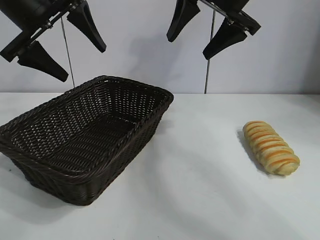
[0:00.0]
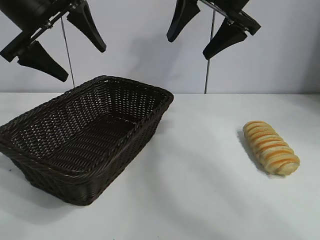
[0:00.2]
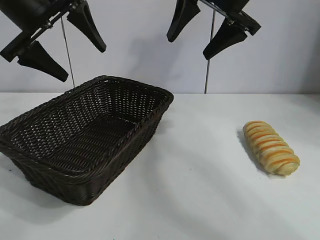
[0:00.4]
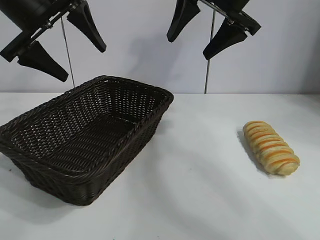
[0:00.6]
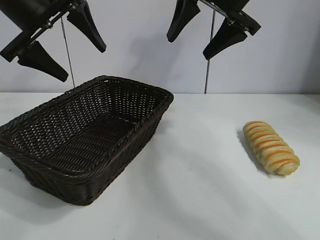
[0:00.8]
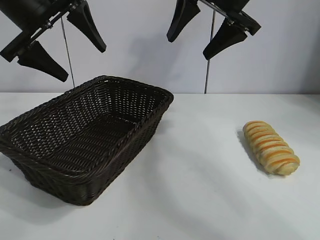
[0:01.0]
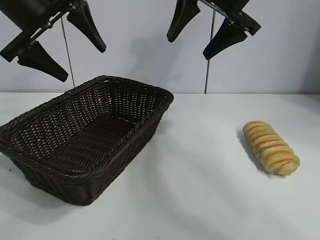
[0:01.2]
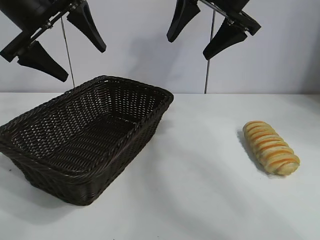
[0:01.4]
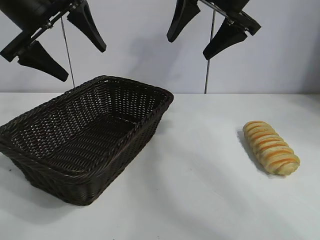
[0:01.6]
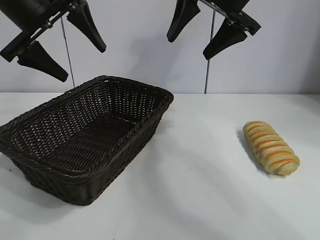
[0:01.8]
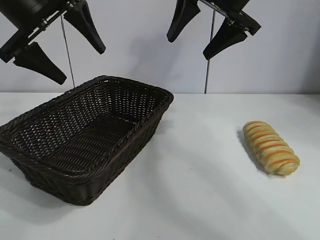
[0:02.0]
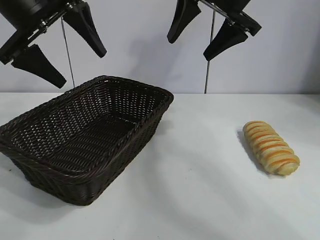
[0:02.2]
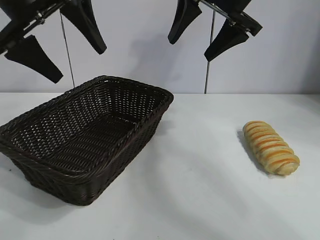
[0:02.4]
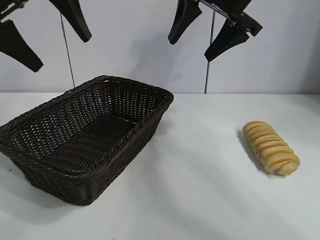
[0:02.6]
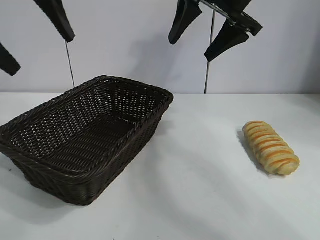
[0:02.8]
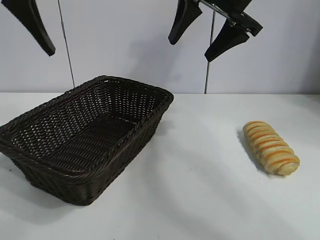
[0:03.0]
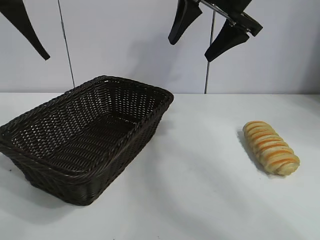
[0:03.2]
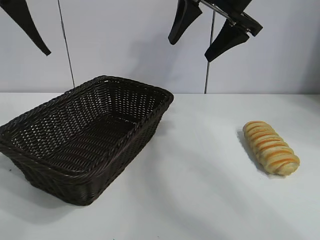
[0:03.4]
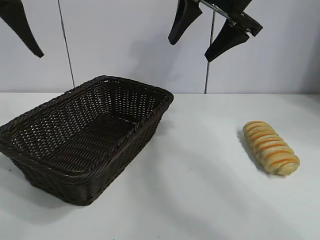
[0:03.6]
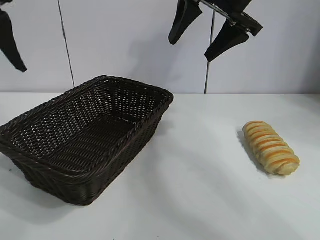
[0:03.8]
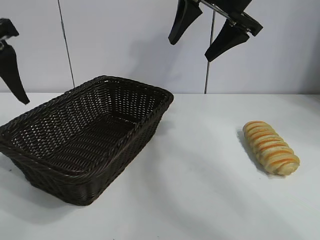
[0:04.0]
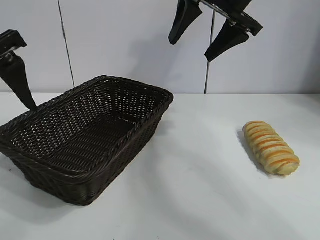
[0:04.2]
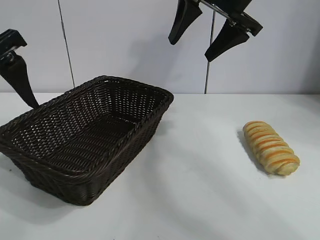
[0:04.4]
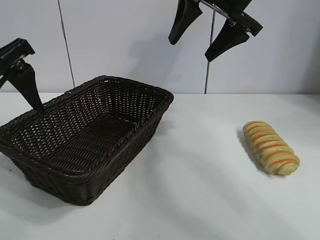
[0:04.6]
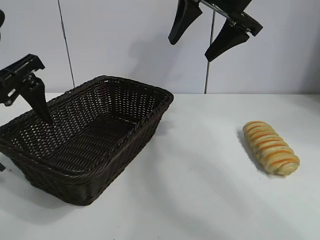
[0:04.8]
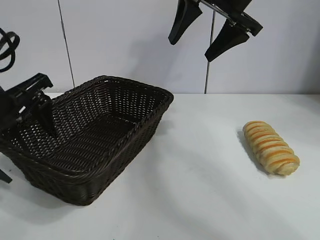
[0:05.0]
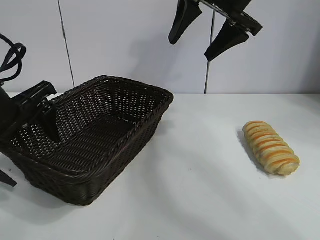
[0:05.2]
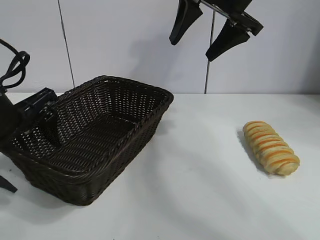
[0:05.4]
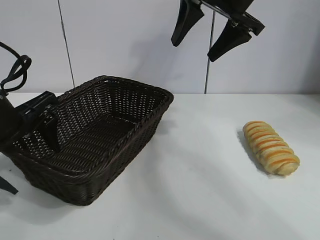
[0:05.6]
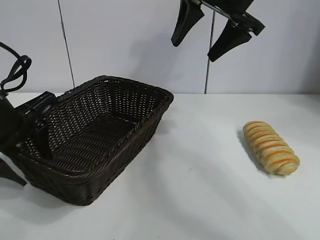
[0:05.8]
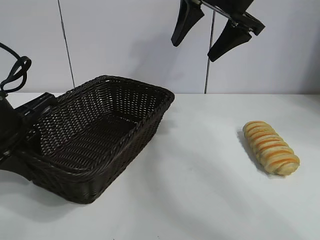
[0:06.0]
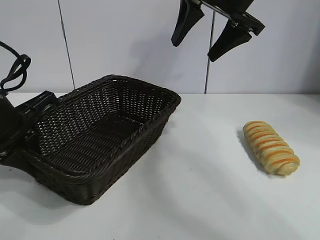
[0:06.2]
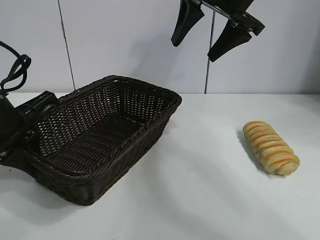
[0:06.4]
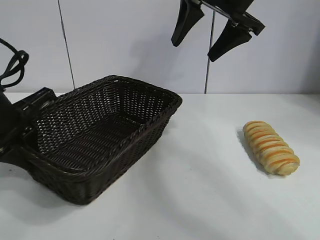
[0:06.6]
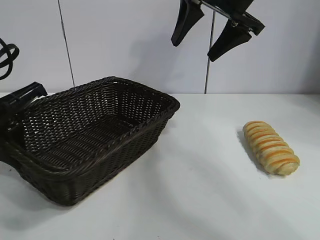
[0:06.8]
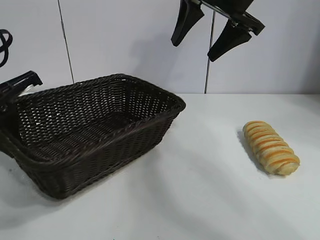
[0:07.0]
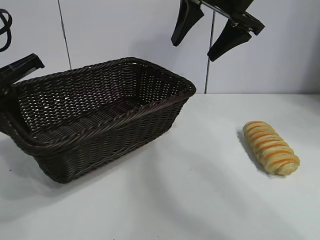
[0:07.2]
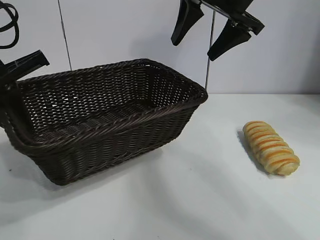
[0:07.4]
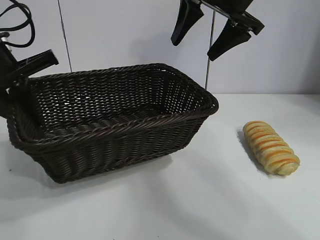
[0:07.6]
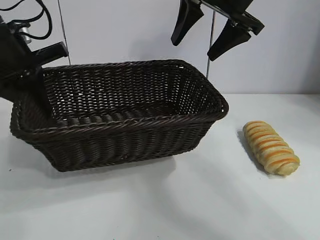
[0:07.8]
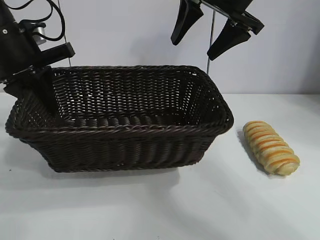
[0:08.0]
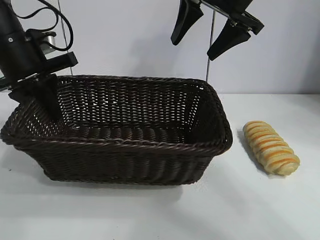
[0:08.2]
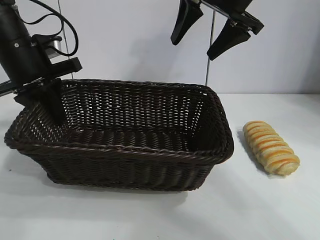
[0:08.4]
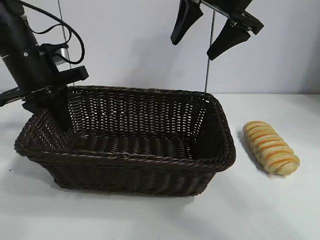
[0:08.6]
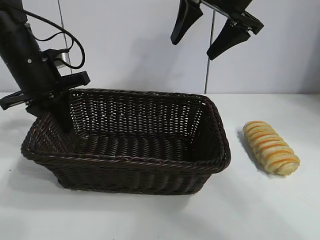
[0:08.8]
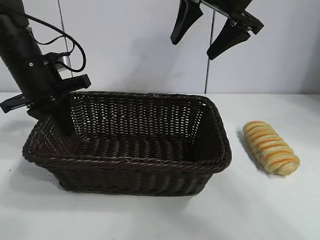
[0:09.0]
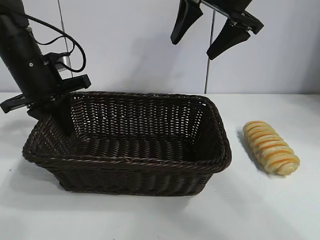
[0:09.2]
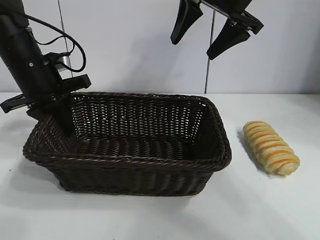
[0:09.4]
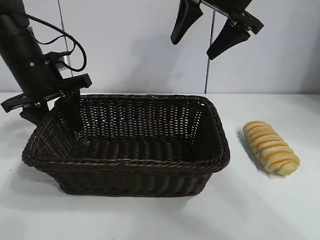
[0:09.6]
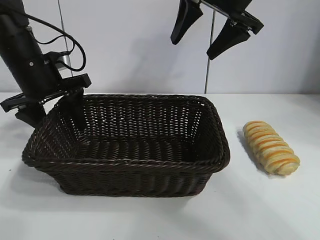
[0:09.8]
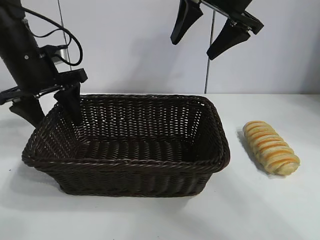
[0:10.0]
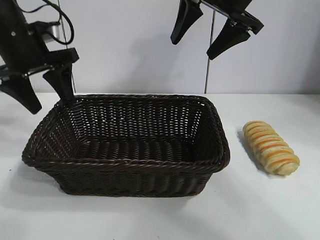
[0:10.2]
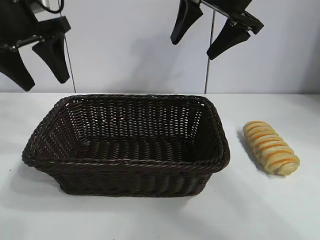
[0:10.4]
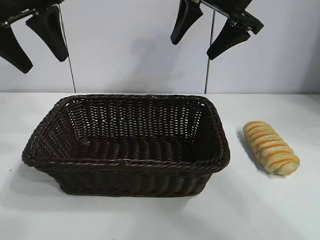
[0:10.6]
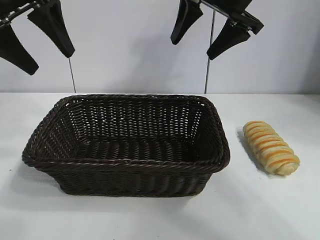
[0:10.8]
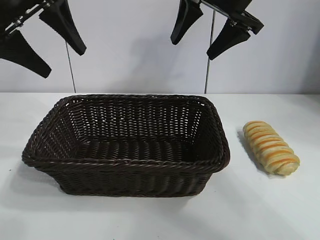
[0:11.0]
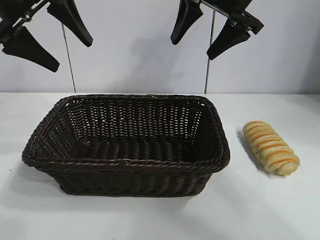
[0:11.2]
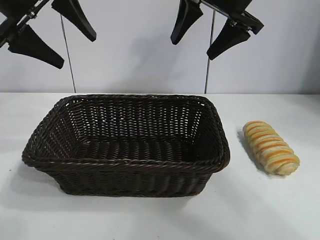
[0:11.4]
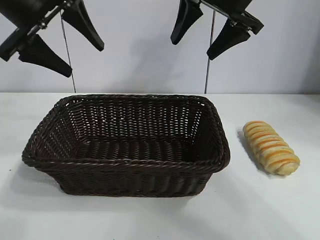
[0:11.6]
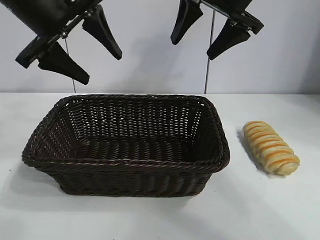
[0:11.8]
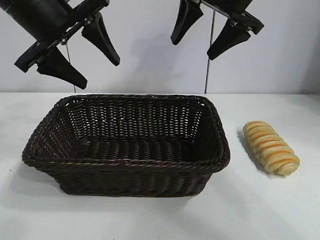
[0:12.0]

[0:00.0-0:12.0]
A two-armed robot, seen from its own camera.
Task of the whole recording: pick up the long bread and put it into the basket.
Step, 0:01.8 to 0:06.0: Grasp the basket with the left gripper.
Step, 0:06.4 to 0:09.8: Place the basket in the center of the table with the left gripper.

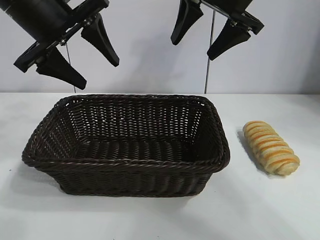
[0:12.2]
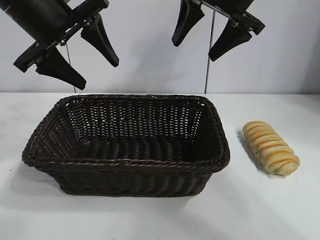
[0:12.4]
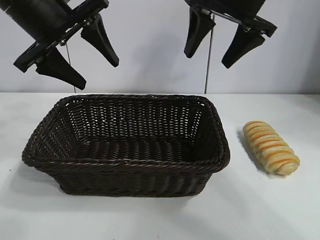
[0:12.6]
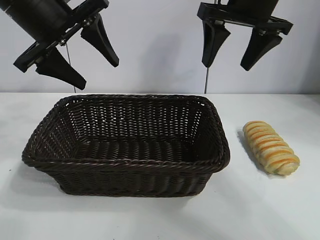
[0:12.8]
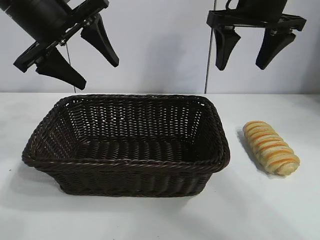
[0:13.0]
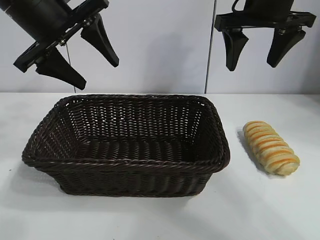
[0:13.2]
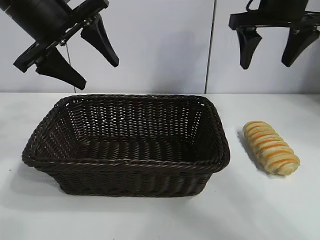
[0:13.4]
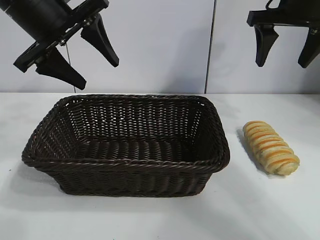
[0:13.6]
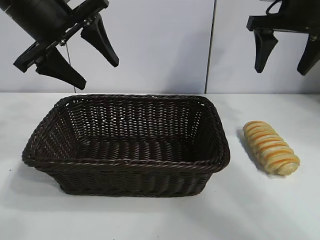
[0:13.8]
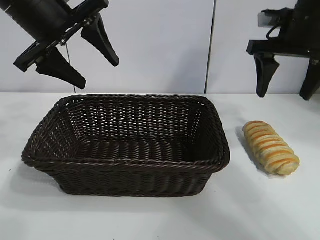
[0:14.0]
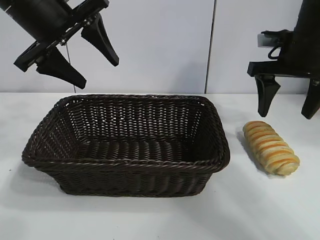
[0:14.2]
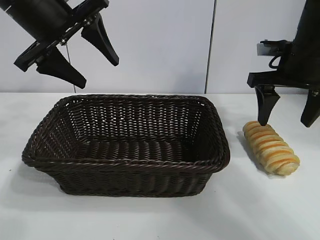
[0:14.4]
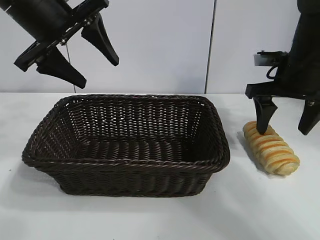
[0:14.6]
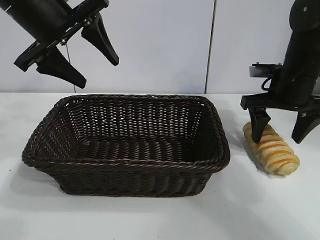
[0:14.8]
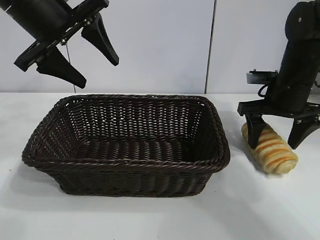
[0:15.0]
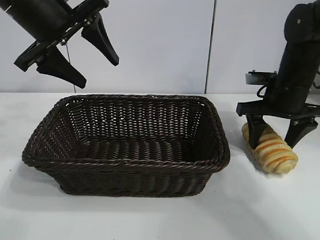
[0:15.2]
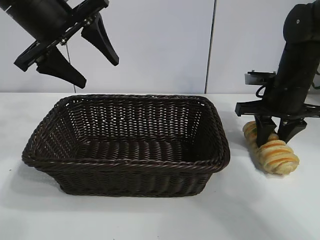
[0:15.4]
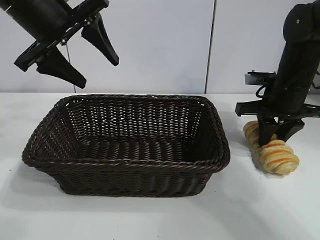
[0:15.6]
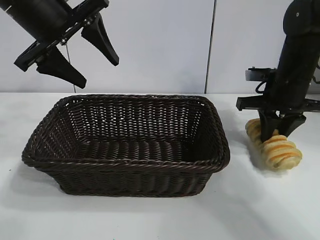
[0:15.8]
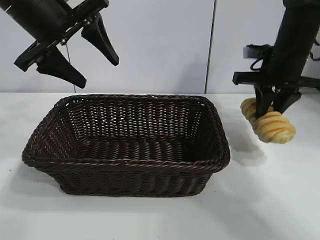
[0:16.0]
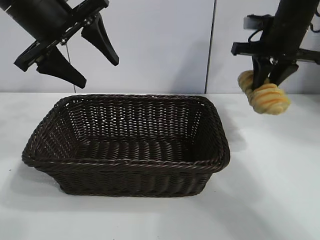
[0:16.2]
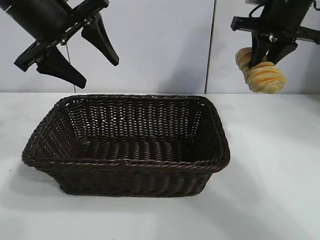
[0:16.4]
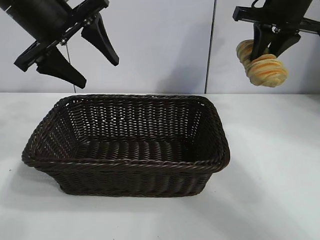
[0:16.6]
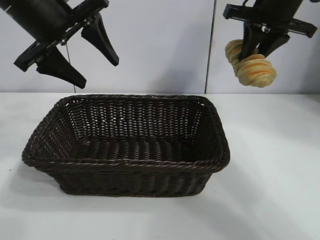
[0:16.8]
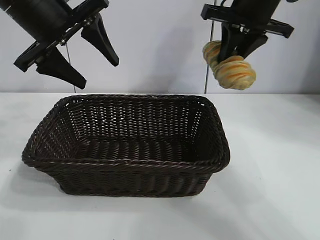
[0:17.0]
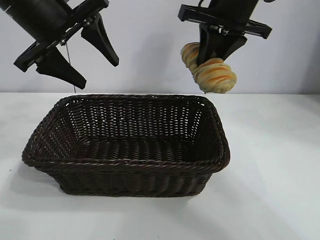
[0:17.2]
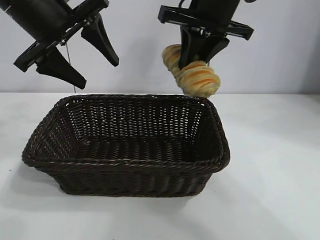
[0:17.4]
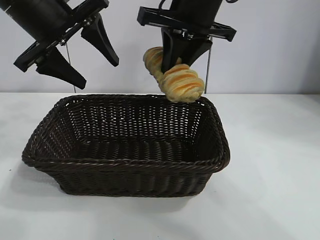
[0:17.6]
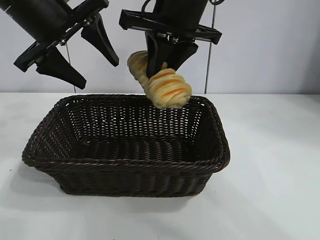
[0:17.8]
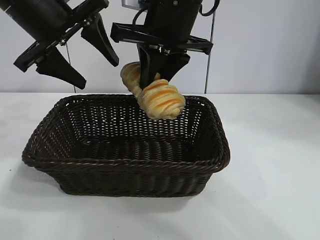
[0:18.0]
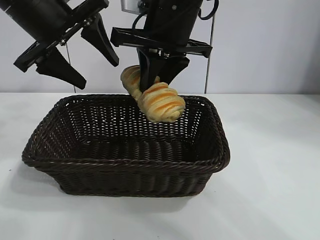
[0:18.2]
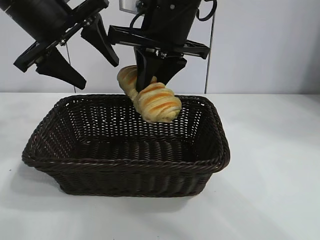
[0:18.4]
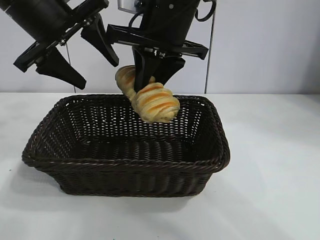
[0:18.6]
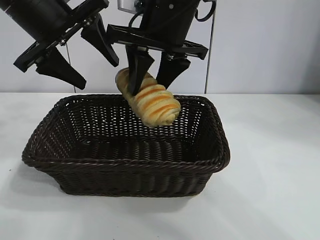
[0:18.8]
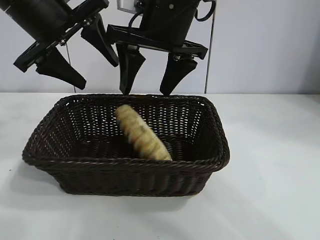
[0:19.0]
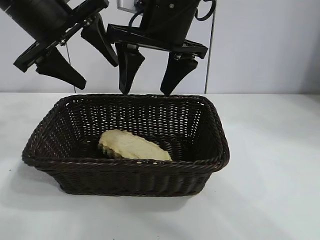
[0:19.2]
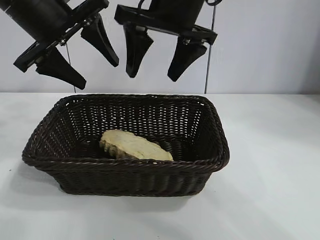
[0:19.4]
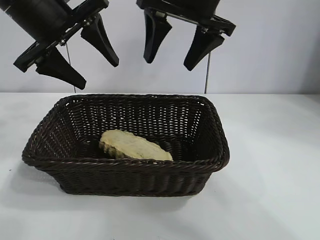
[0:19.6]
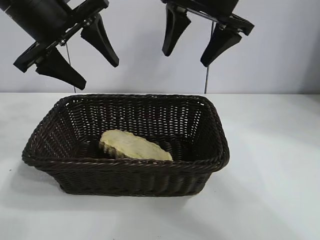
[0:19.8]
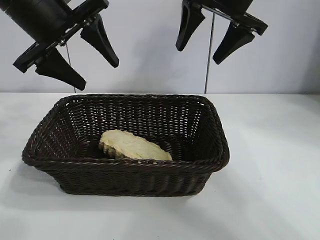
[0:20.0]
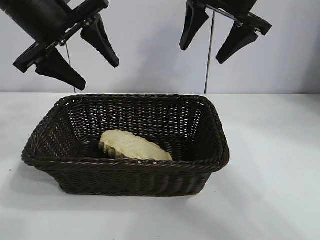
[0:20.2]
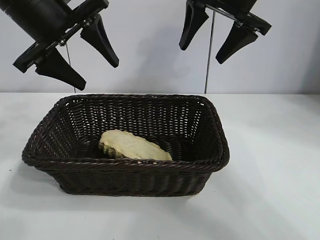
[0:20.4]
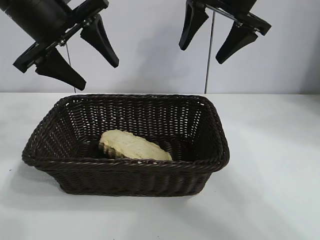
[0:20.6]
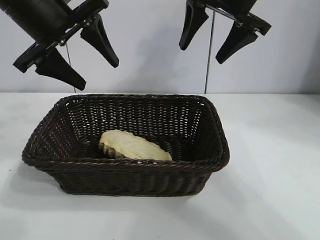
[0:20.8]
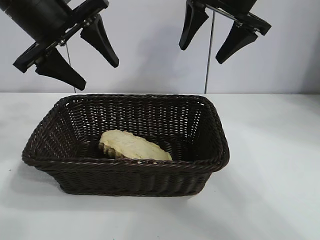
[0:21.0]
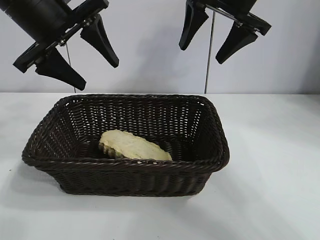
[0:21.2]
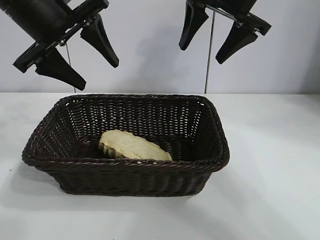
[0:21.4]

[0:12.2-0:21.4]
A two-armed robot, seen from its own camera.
Task of the whole recording: pick up the long bread and put it into the basket.
Step, 0:12.2 to 0:15.4: Grasp the long bread with right gripper.
Step, 0:15.8 to 0:19.0: Place the long bread in the basket with right gripper.
